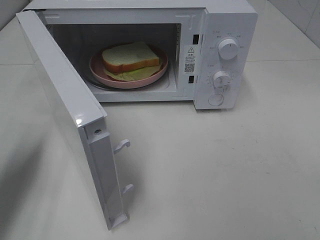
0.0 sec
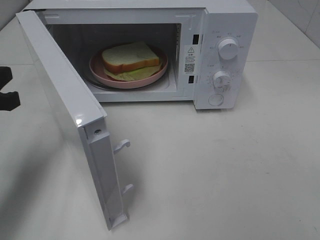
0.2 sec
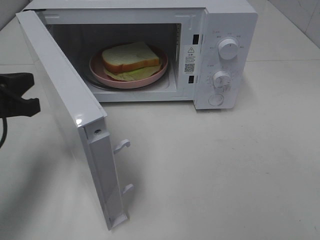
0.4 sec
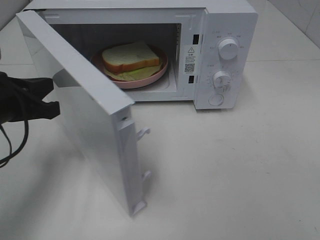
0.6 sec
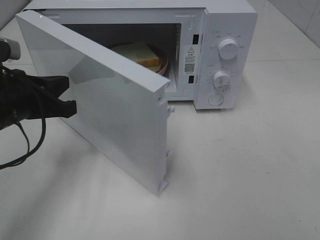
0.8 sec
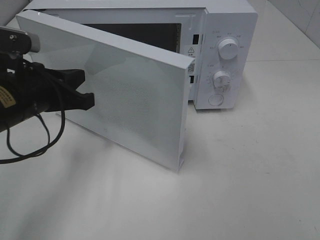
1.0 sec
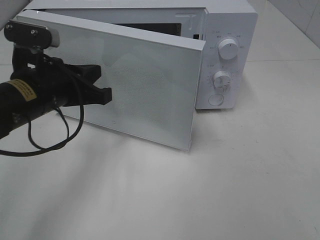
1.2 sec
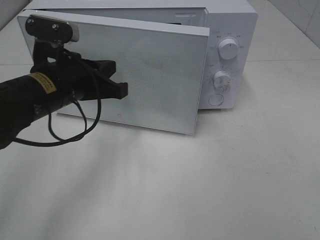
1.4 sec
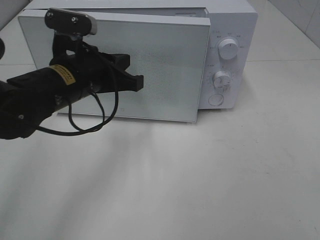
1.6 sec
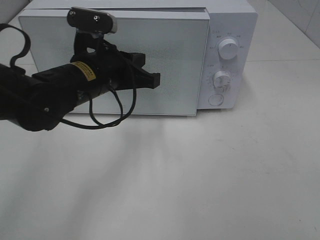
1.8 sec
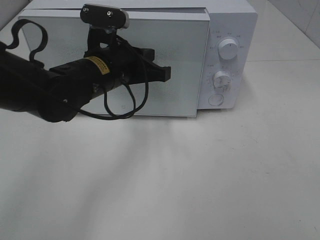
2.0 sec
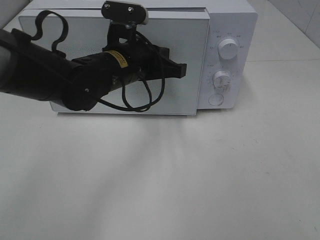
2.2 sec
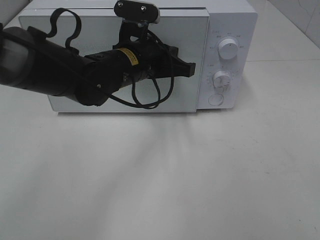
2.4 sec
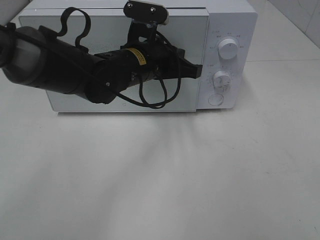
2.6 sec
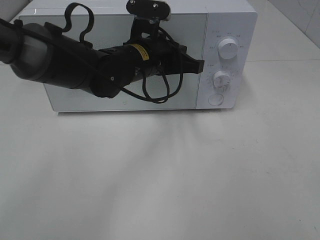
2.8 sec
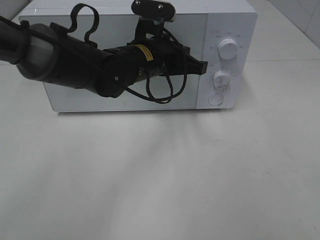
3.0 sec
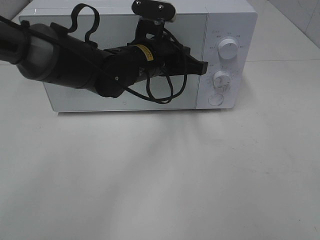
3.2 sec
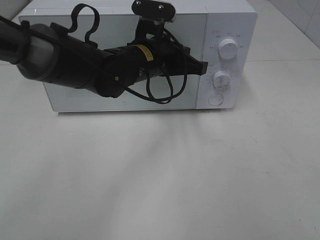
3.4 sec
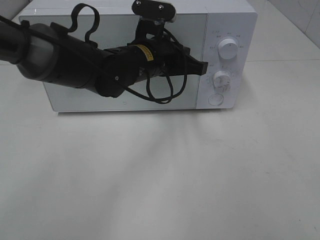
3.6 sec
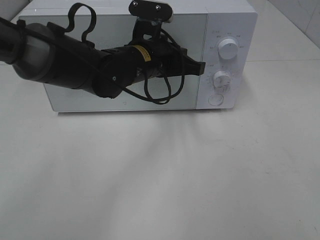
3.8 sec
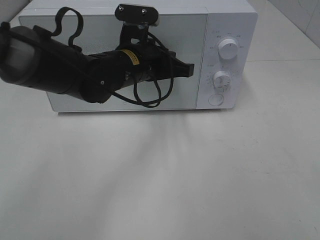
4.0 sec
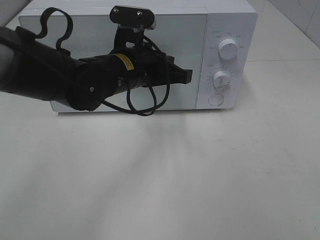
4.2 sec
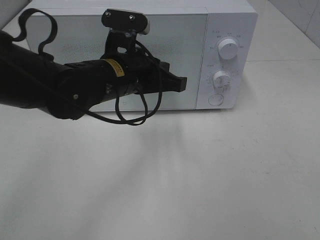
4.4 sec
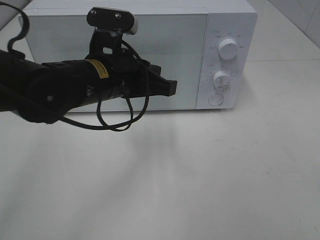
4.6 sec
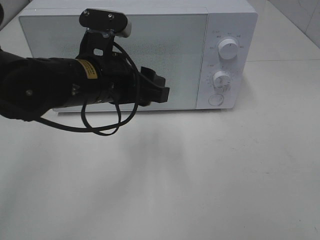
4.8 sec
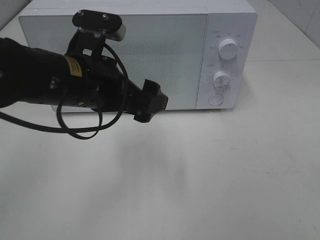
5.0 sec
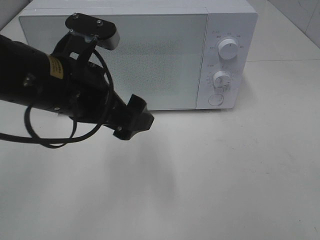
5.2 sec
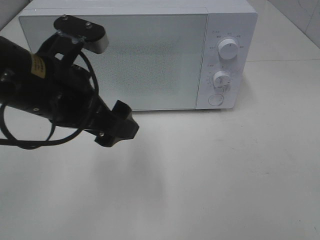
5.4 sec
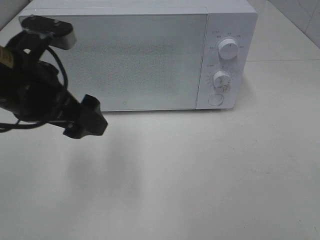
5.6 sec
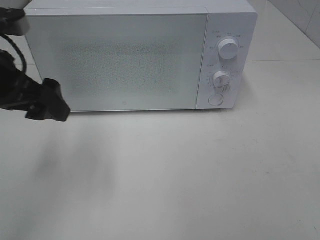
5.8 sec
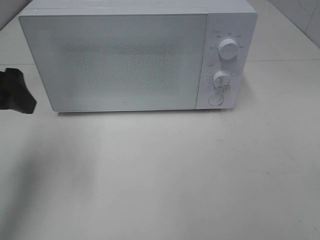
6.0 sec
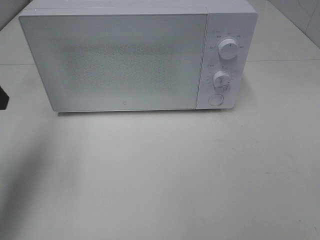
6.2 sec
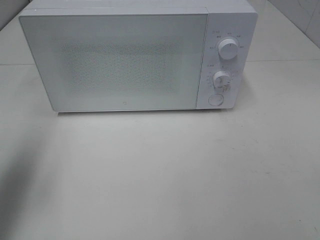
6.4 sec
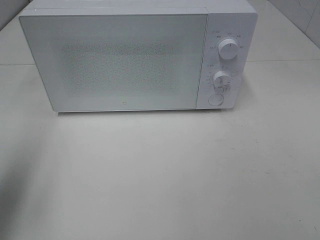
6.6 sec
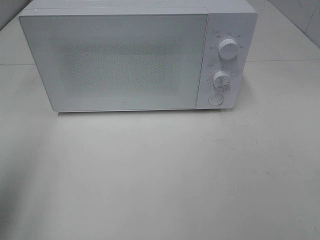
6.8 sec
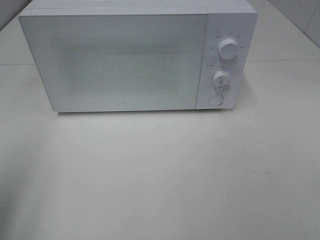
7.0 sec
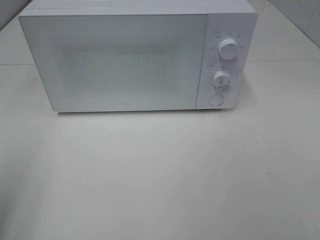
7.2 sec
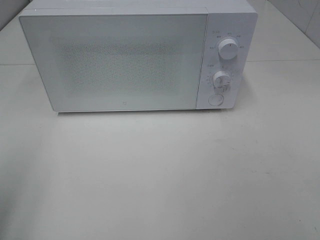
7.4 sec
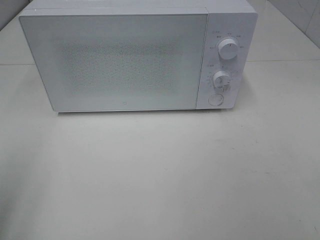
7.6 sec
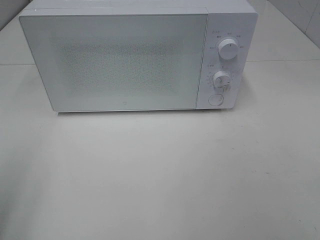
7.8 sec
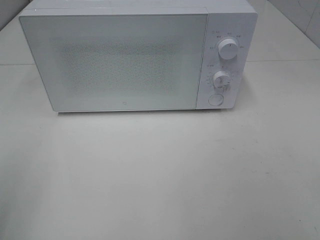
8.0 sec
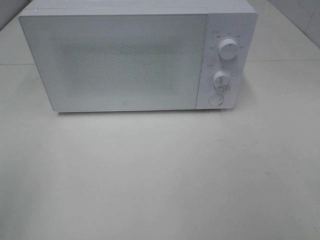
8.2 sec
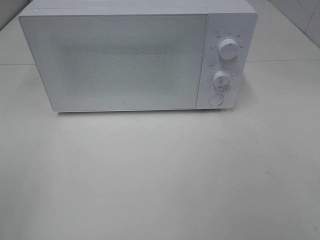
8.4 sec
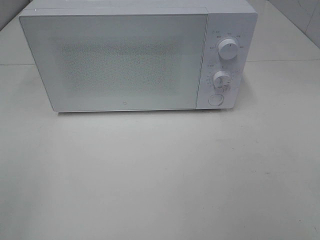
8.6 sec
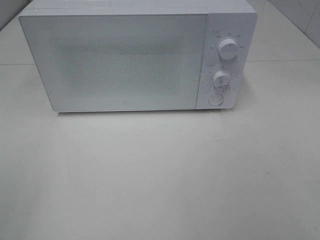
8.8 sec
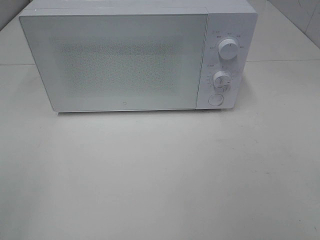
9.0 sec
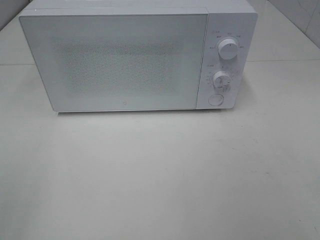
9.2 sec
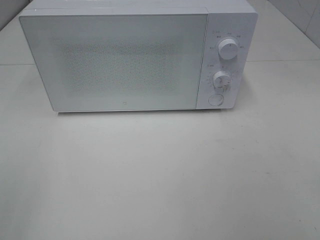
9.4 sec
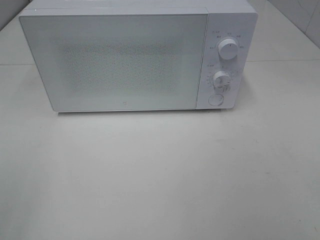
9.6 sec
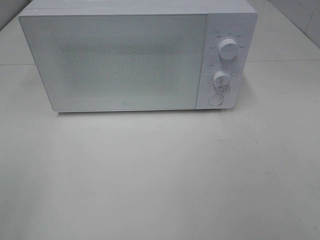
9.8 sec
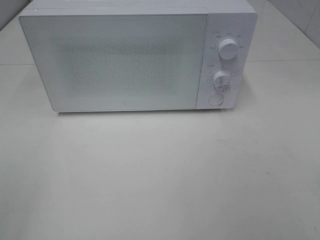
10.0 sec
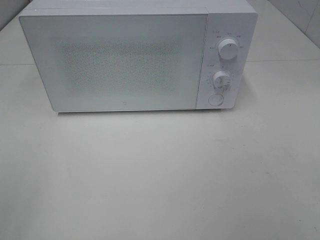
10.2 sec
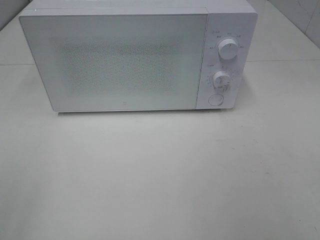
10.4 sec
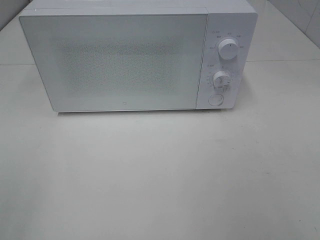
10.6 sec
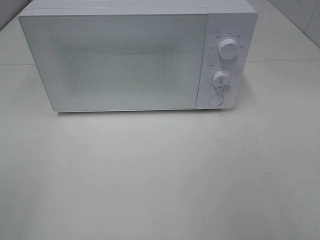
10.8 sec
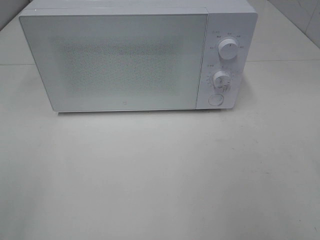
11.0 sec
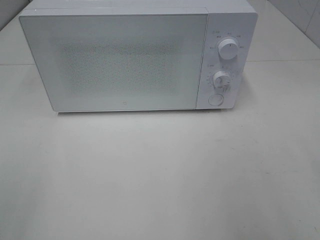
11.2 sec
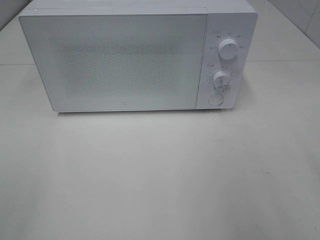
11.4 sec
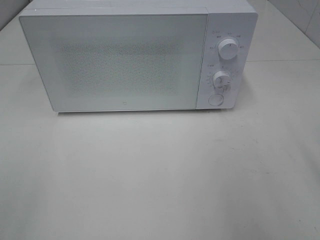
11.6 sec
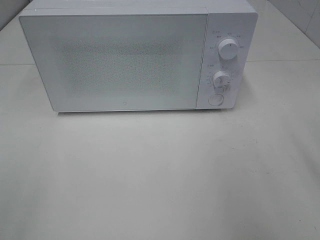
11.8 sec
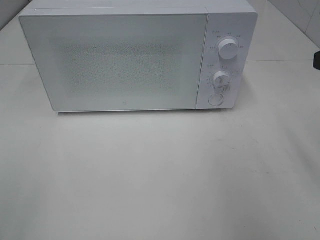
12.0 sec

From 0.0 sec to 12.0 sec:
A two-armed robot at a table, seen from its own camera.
Task of the whole recording: Heat Sandwich.
Step, from 0.0 sec to 4.6 sec: Left hand: close the microwave door.
From 0.0 sec to 1.6 sec: The left gripper heads to the right and forward, covering about 20 cm.
From 1.6 sec to 3.0 sec: The left gripper moves to the right and forward, roughly 10 cm.
From 3.0 sec to 4.4 sec: The left gripper is displaced backward by approximately 5 cm.
From 4.4 sec to 6.0 sec: The left gripper is displaced to the left and upward by roughly 20 cm, and opens.
From 6.0 sec to 7.6 sec: The left gripper shifts approximately 15 cm backward and to the left.

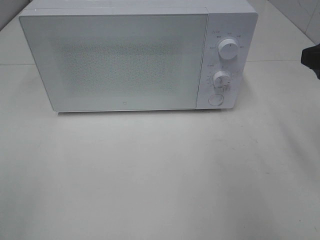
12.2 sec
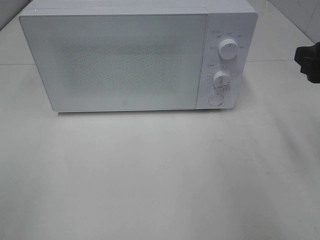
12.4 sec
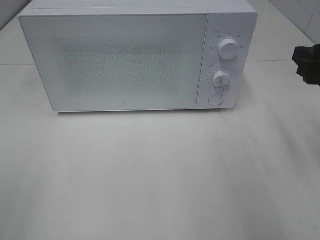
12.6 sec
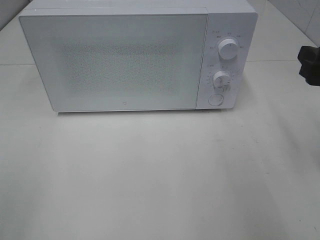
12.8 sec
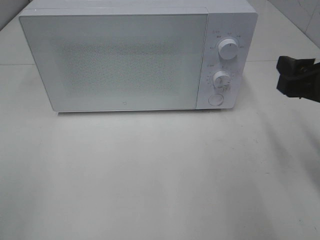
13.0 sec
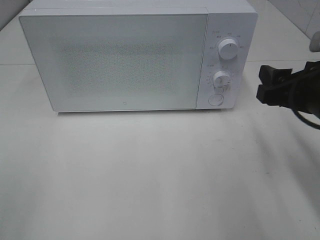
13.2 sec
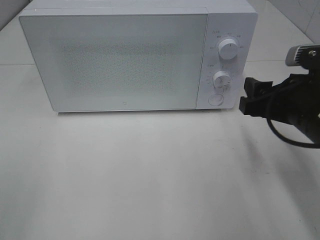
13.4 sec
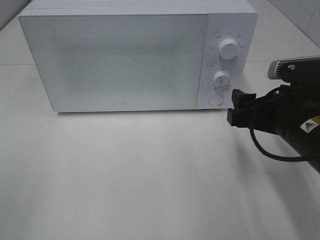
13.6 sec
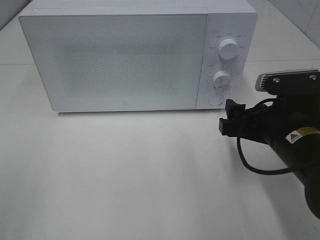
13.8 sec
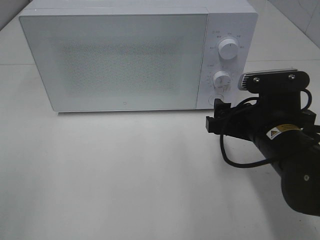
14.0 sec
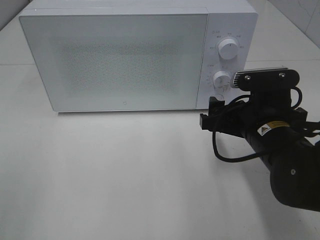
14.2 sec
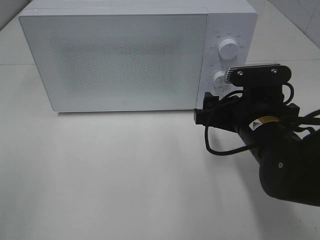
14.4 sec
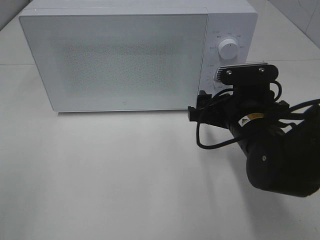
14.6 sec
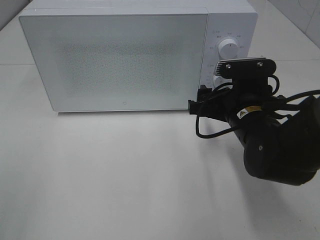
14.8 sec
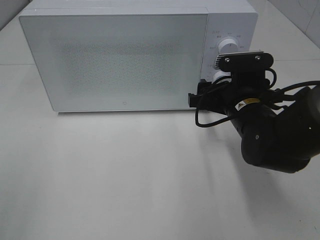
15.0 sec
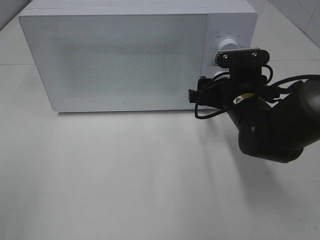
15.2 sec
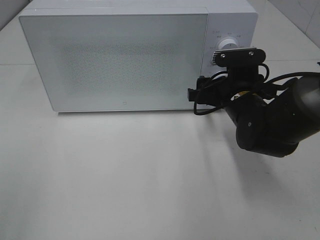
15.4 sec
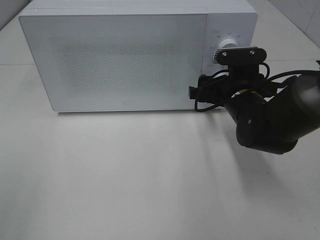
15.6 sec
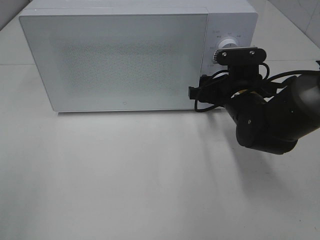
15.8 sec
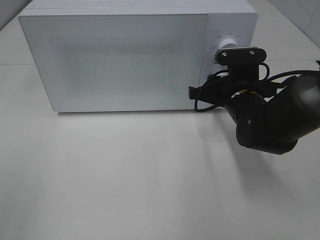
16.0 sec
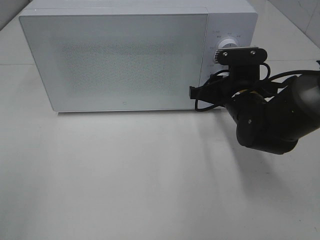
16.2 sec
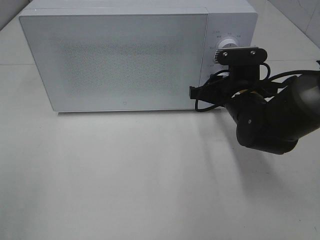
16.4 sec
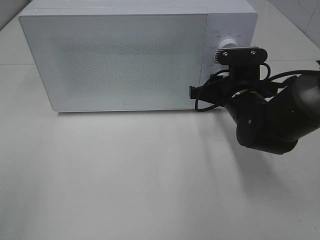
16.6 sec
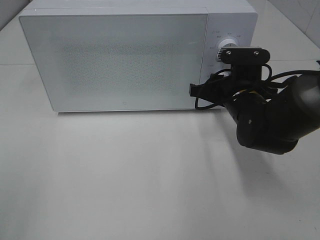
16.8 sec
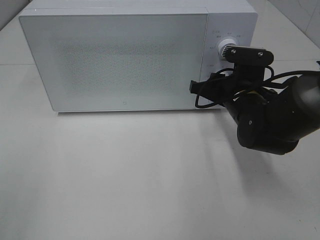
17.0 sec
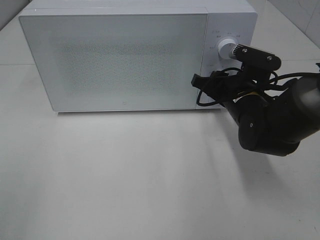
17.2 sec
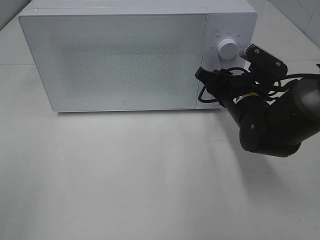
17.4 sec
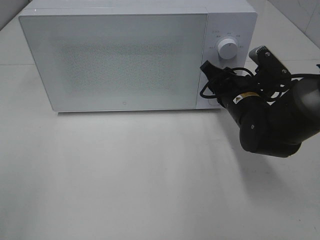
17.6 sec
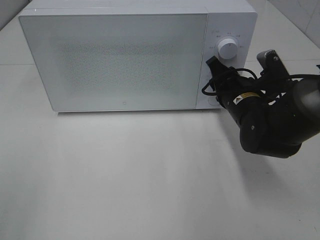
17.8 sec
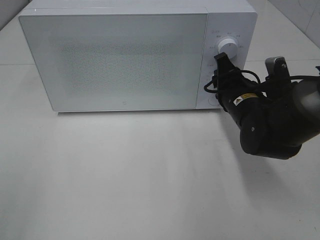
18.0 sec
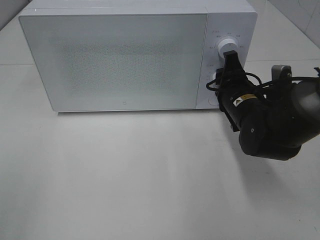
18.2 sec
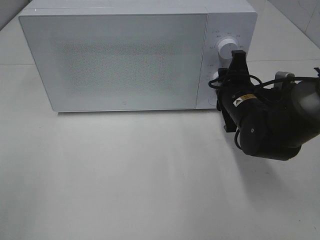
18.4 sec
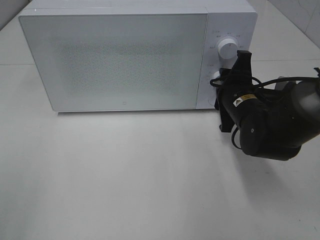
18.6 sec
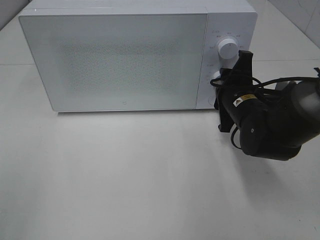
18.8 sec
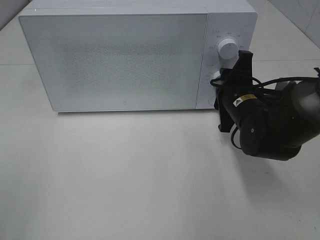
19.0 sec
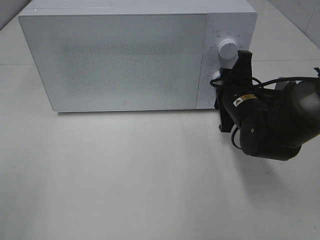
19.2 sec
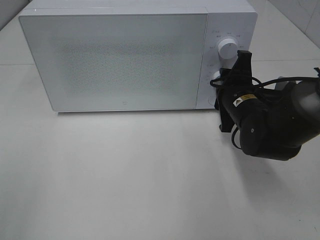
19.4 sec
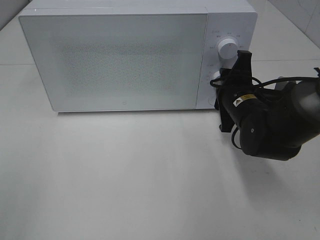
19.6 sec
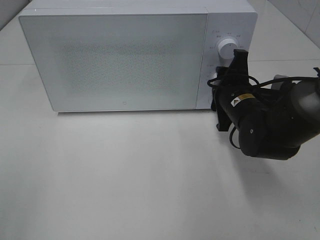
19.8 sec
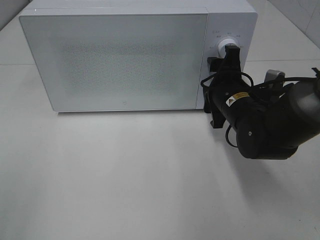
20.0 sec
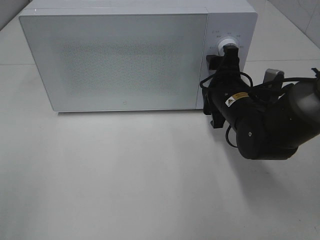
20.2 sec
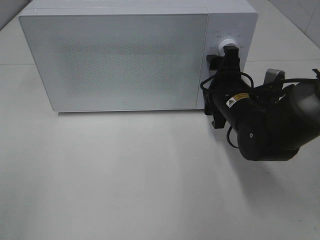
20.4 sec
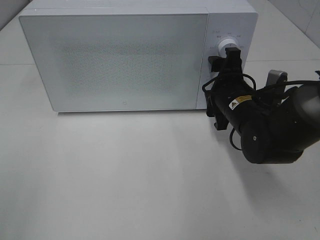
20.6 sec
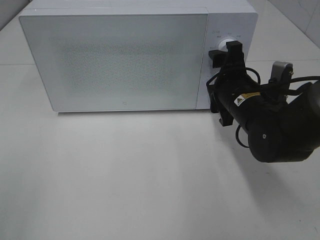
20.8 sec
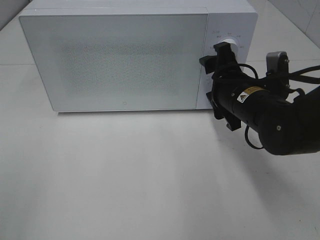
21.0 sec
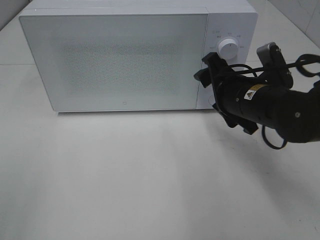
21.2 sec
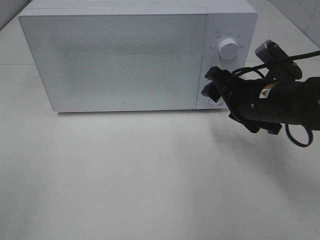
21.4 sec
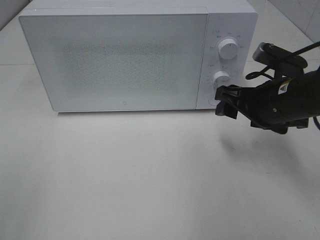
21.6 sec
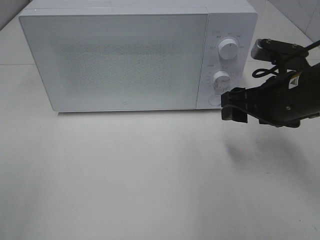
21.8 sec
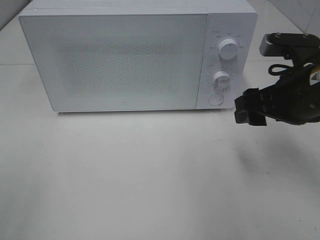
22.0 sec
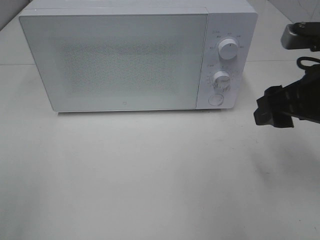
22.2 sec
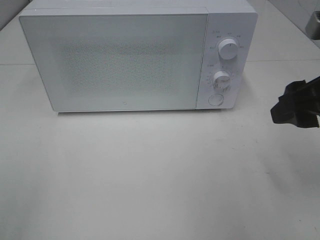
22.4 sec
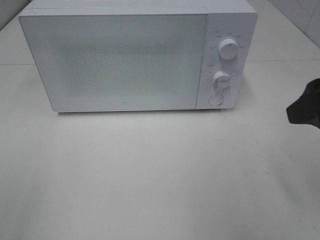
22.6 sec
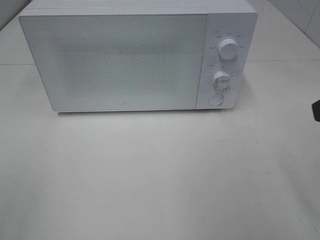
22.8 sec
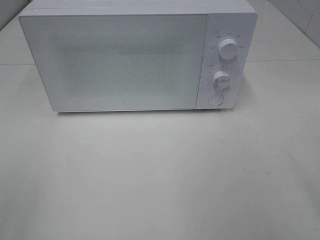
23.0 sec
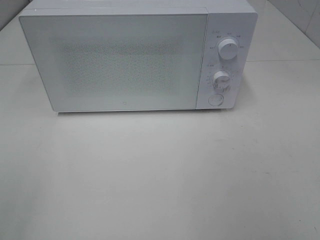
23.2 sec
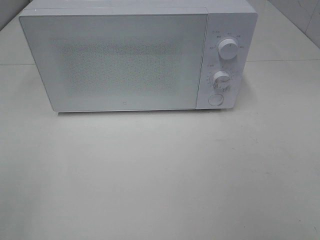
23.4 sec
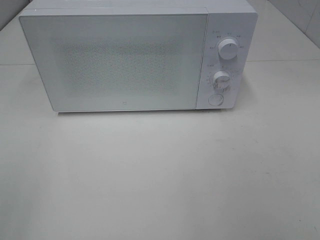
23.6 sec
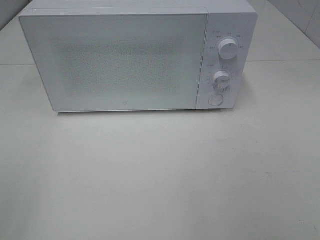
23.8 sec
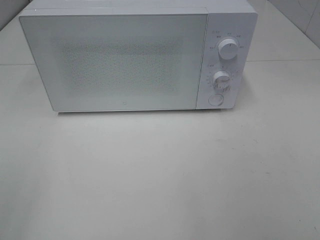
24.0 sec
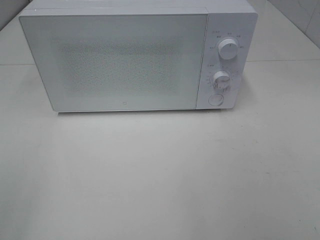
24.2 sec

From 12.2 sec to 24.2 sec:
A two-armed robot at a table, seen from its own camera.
Task of the whole recording: Heat Sandwich.
Step, from 12.2 sec to 20.4 sec: Right hand: twist timer button.
From 12.2 sec to 13.8 sec: The right gripper heads downward and to the left, covering some 15 cm.
From 13.8 sec to 15.2 sec: The right gripper is displaced forward by about 10 cm.
From 15.2 sec to 16.6 sec: The right gripper closes up.
From 18.2 sec to 19.8 sec: The grippers make only small movements.
From 19.8 sec to 21.2 sec: The right gripper changes place by roughly 5 cm.
From 21.2 sec to 22.6 sec: The right gripper heads upward, backward and to the right, covering approximately 20 cm.
From 22.6 sec to 24.2 sec: The right gripper moves backward, approximately 15 cm.
